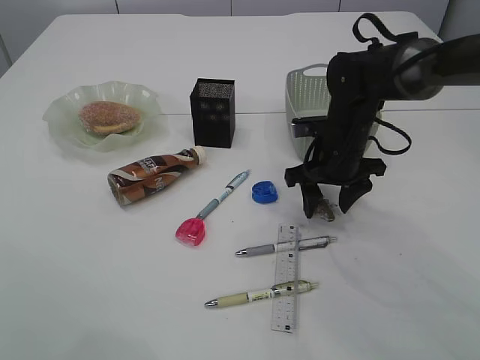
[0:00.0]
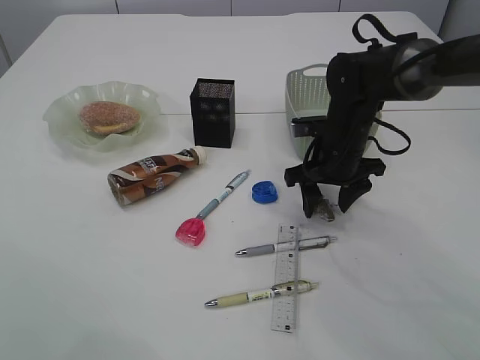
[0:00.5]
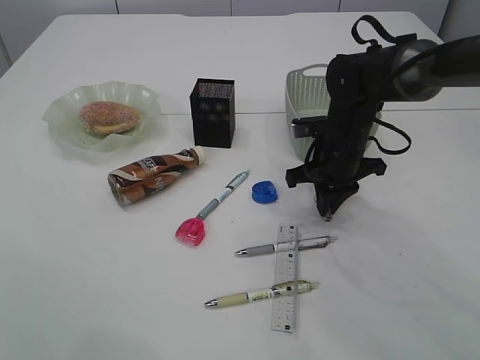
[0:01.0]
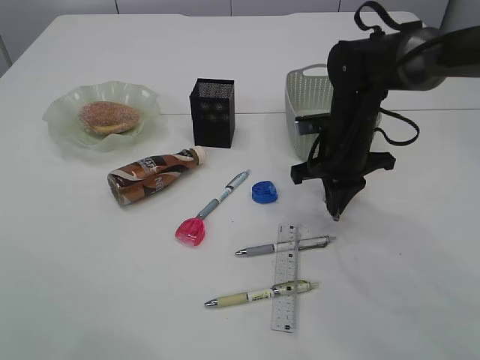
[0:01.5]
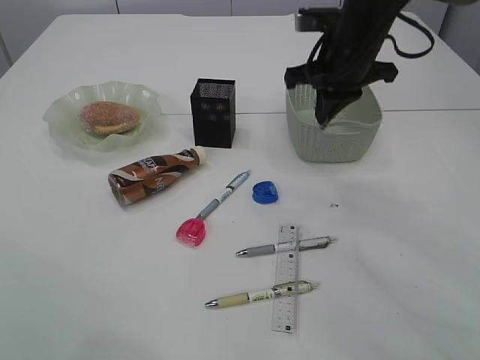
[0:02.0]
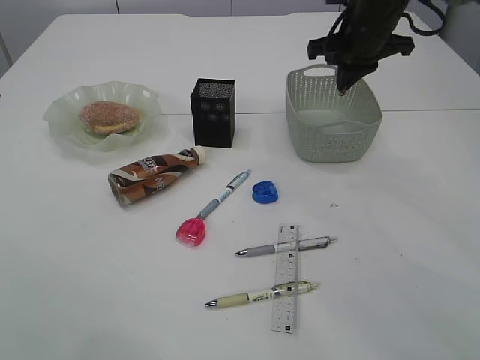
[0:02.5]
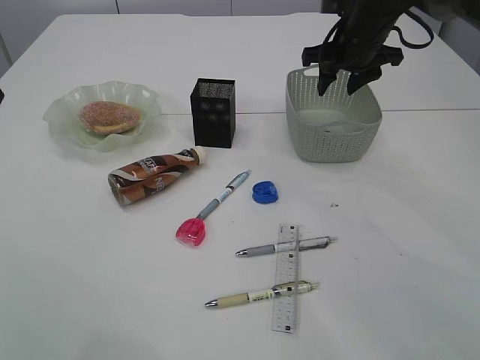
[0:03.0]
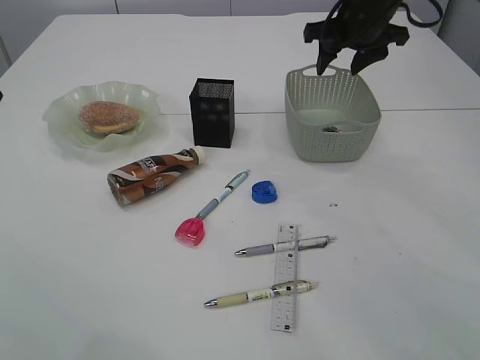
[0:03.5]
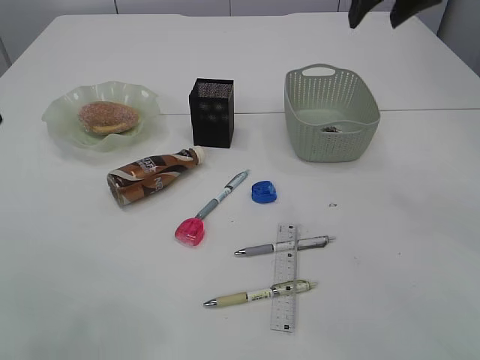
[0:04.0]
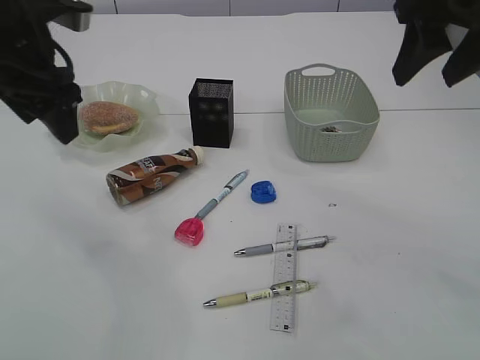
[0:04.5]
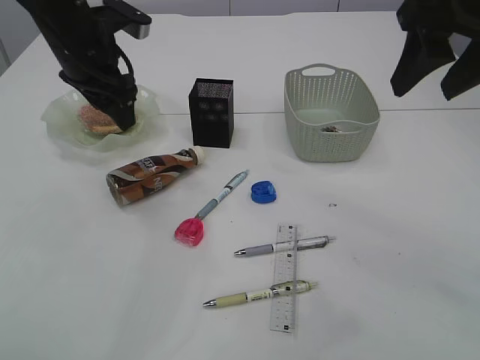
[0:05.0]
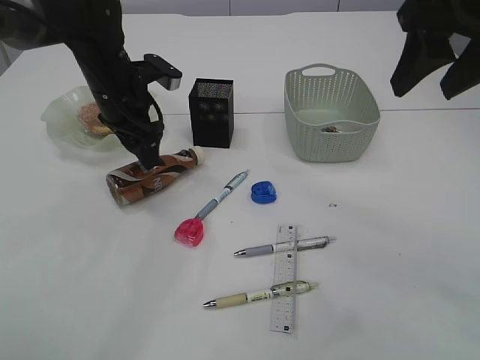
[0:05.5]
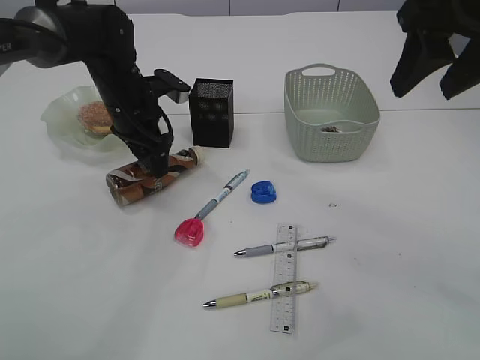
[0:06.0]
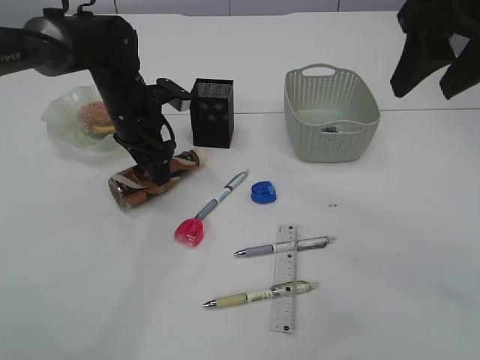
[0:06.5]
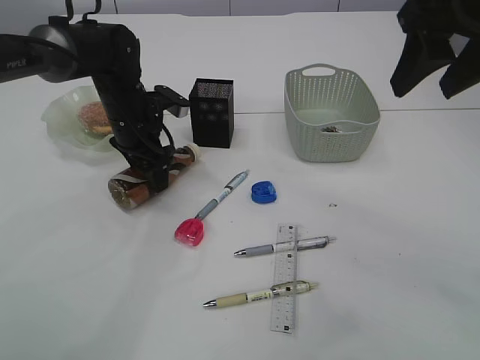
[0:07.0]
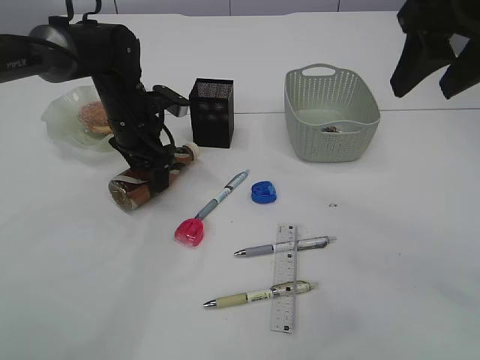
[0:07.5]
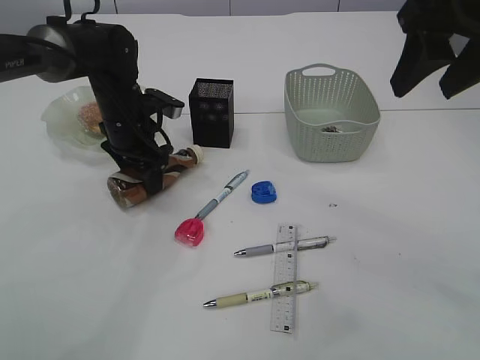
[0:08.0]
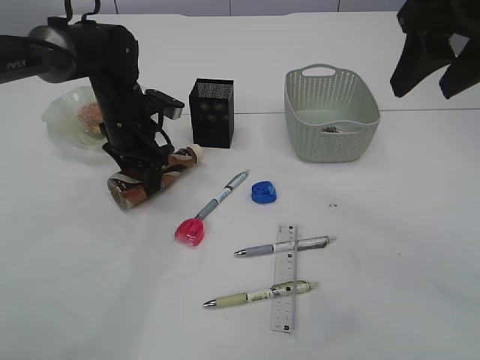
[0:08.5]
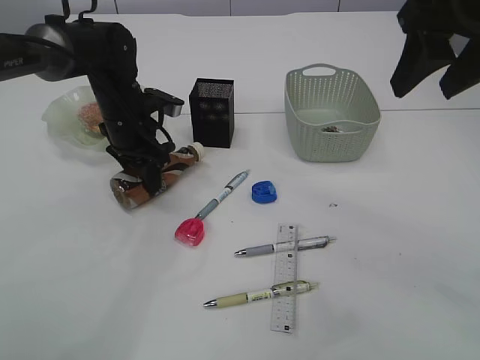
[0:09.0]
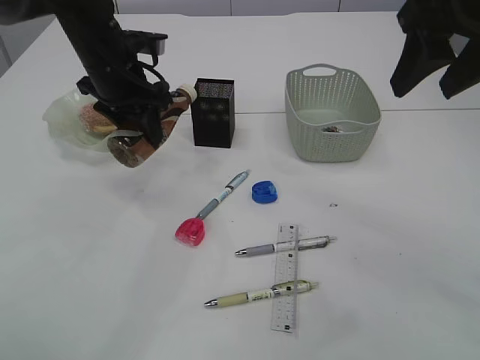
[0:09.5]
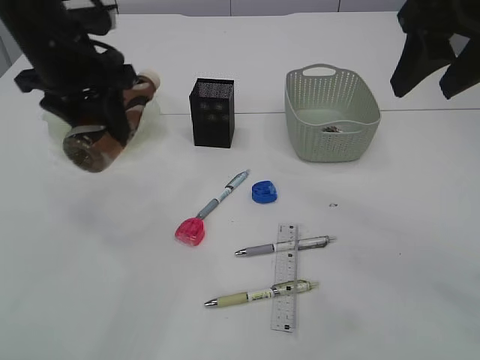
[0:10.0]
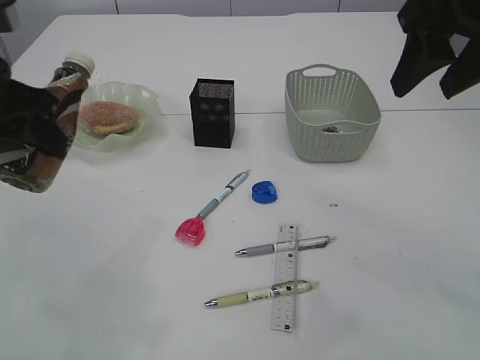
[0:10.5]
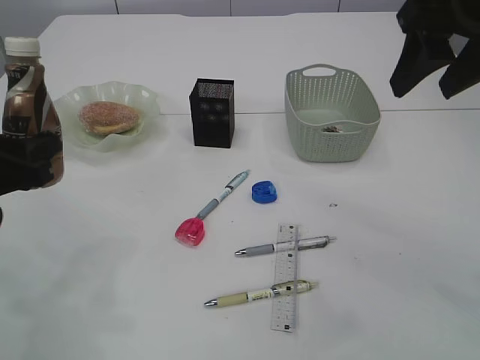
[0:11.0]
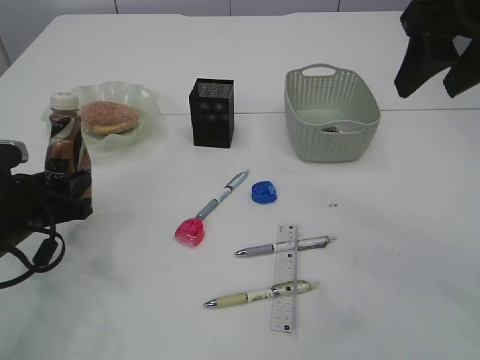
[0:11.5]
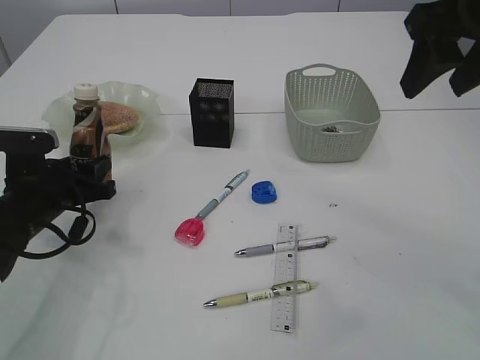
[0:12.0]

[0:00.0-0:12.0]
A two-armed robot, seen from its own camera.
Step, 2.0 to 3.0 s: Place the waste paper in the basket.
Step, 3.5 to 10.0 s: Pick up the bottle with the left arm.
0.0 to 2.0 s: The right gripper heads upward, covering approximately 15 cm, and closes up.
2.0 to 4.0 s: The right gripper goes some 10 cm upward, and opens up.
4.0 to 6.0 s: The right gripper is displaced backward by approximately 15 cm, while the left gripper moves forward and downward, some 30 cm.
6.0 to 8.0 s: The grippers make only small movements.
8.0 to 10.0 s: The left gripper travels upward and backward by some 15 cm, and closes.
10.0 to 12.0 s: The left gripper is displaced downward by some 20 cm.

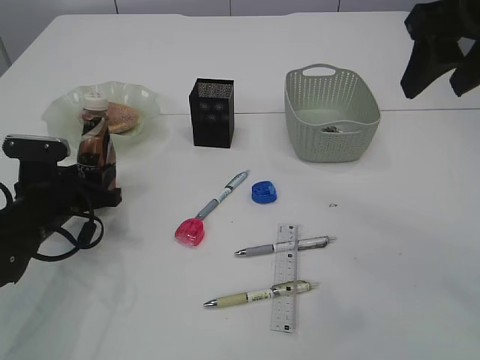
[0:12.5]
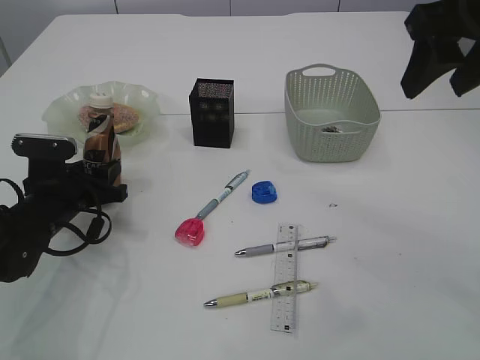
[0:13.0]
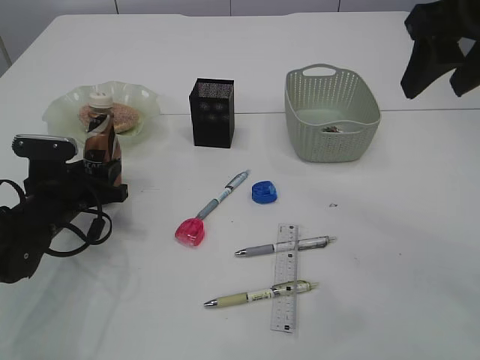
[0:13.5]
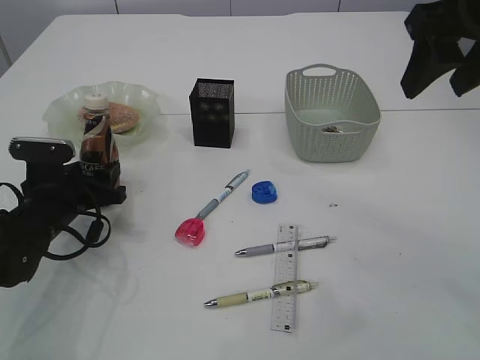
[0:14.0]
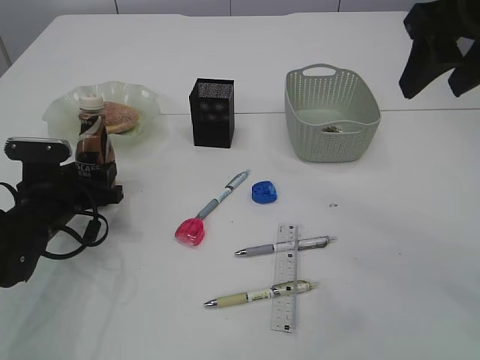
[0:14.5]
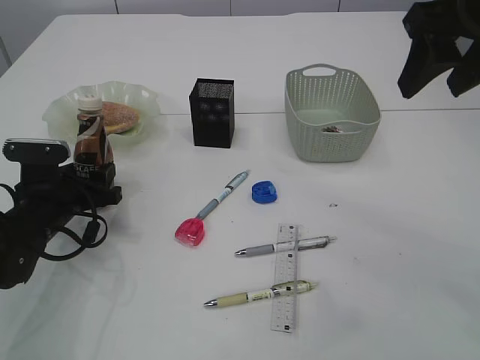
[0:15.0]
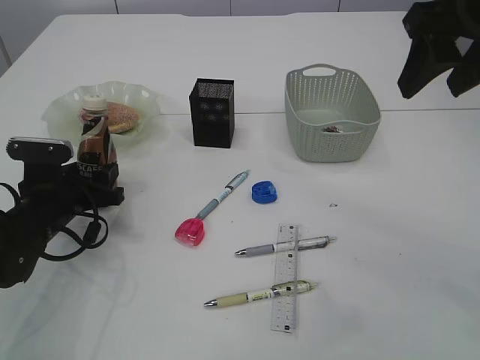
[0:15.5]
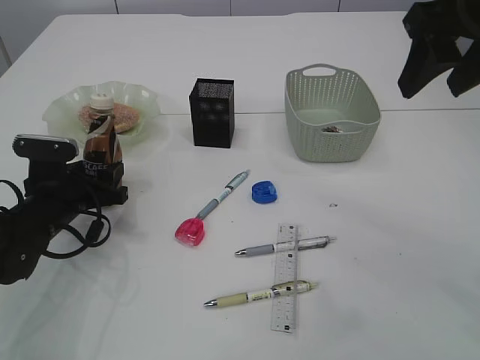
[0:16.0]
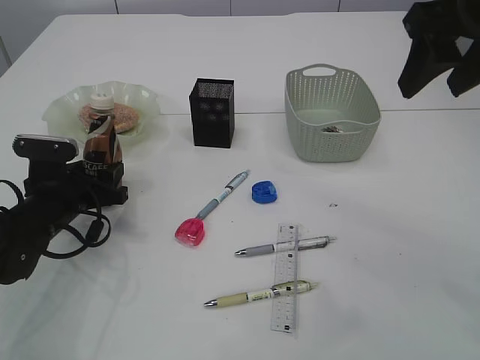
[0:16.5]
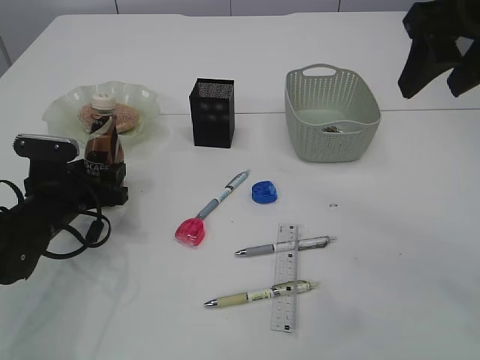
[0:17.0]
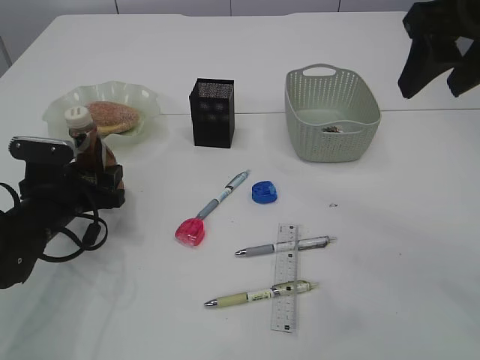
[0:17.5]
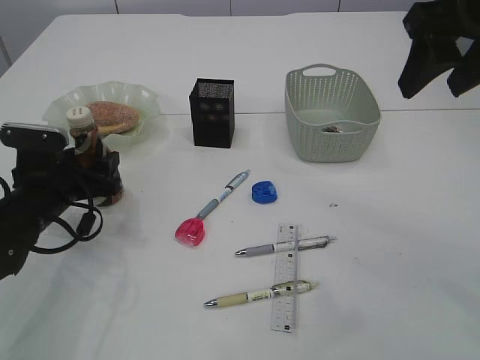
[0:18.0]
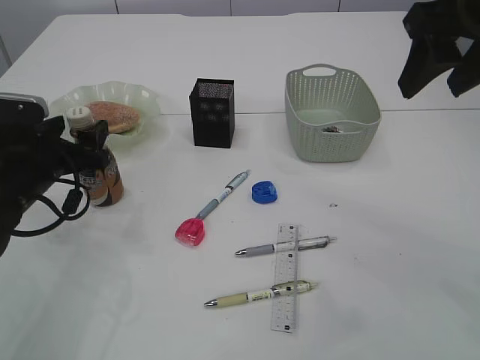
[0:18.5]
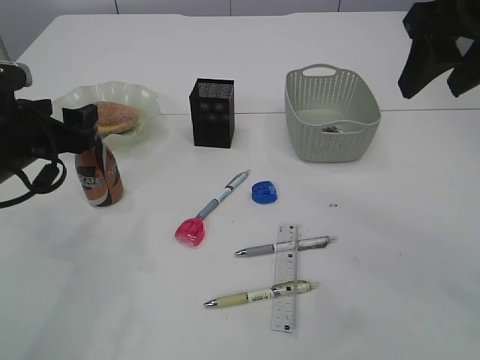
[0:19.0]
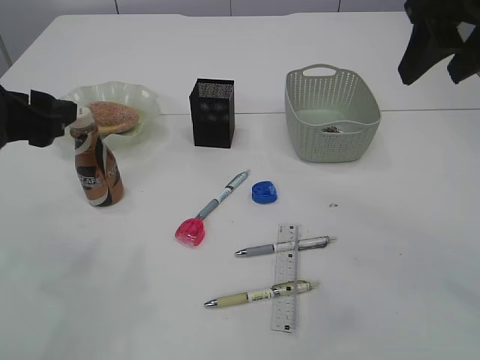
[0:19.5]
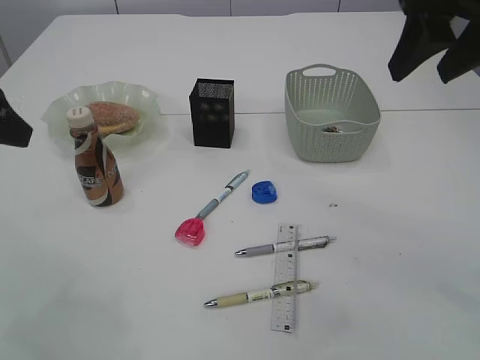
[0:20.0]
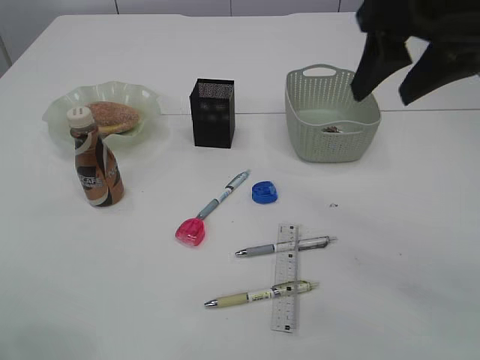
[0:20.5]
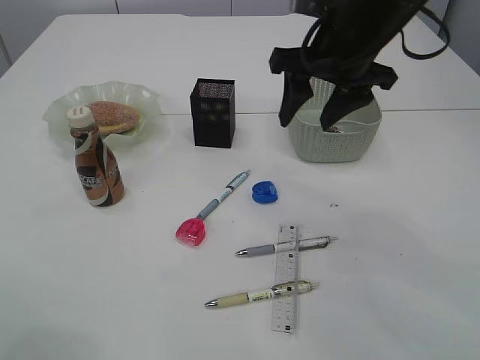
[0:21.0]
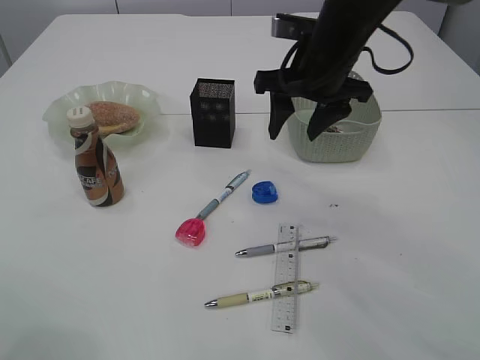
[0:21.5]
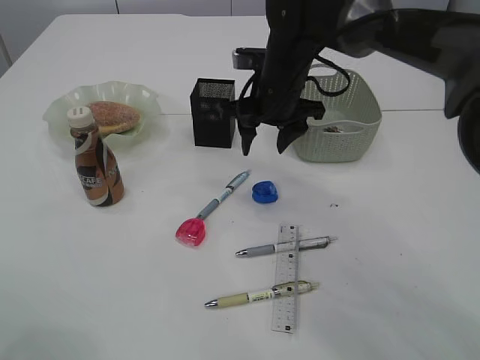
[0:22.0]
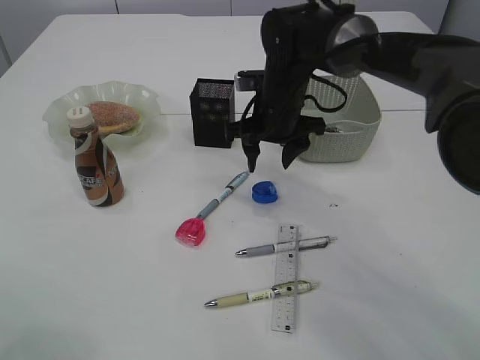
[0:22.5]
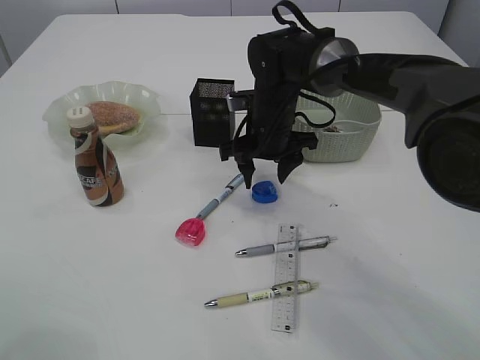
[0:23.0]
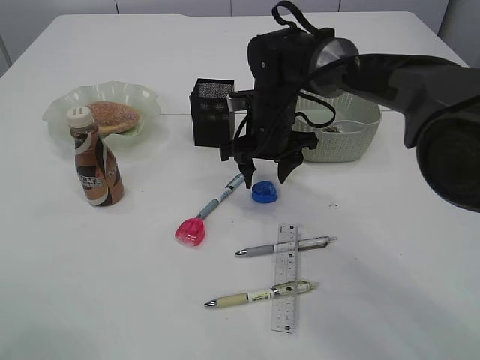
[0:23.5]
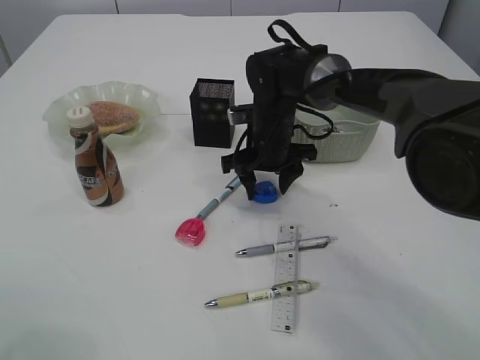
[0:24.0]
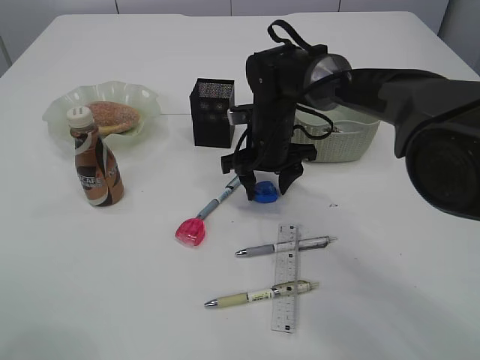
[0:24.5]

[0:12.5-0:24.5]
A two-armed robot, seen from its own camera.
Step, 12.5 to 19.5 s: Place the bottle.
12.5 to 14.5 s: The grippers stay close to where they were, moving slightly.
14.5 to 16.5 s: Both grippers stay about where they are.
16.5 to 18.5 s: The left gripper is displaced upward by some 5 cm.
18.5 to 20.5 s: The left gripper shifts approximately 25 cm upward and backward.
20.5 to 22.5 s: The right gripper is displaced downward, forward and to the left by about 25 cm.
22.5 to 24.5 s: The right gripper moves some 5 cm.

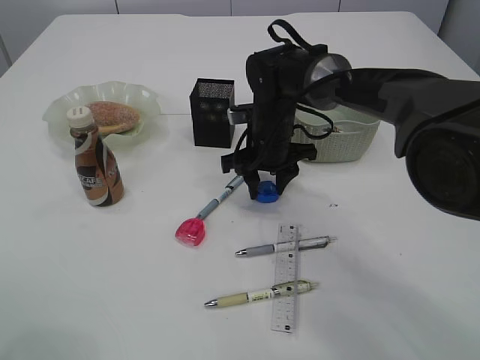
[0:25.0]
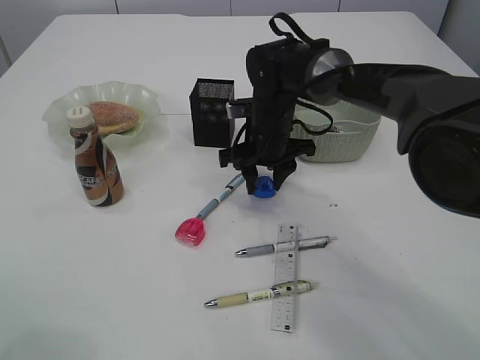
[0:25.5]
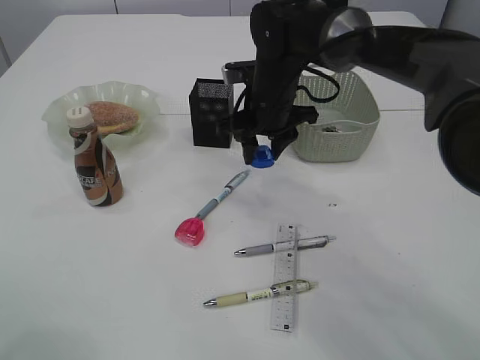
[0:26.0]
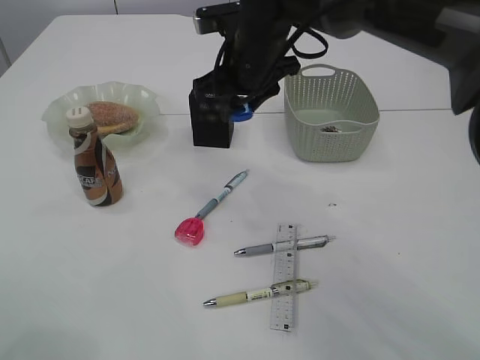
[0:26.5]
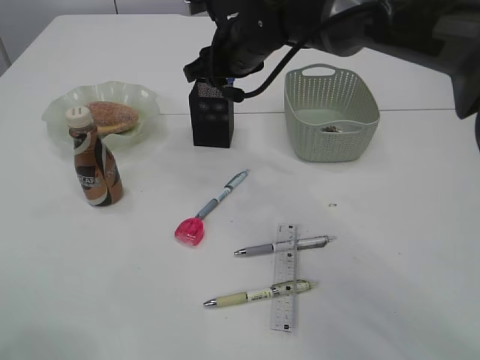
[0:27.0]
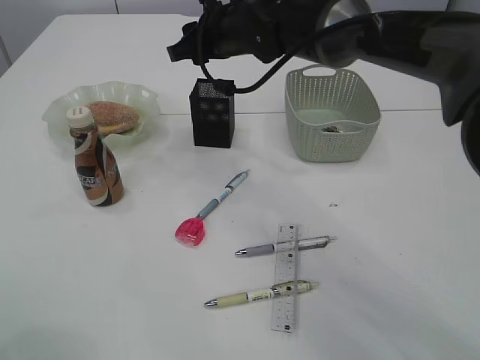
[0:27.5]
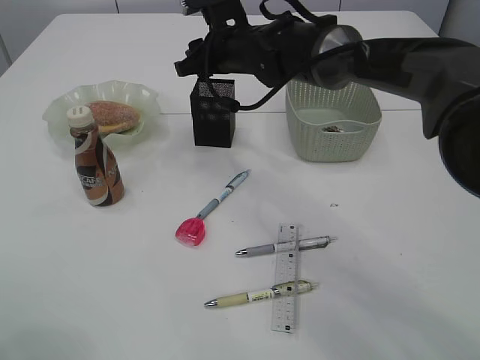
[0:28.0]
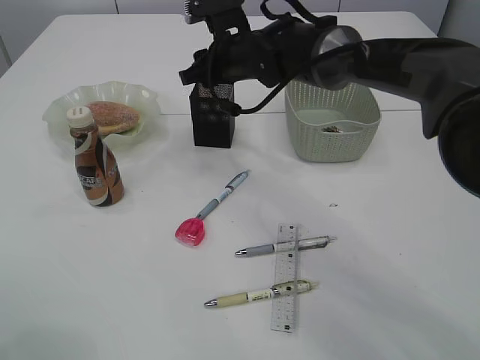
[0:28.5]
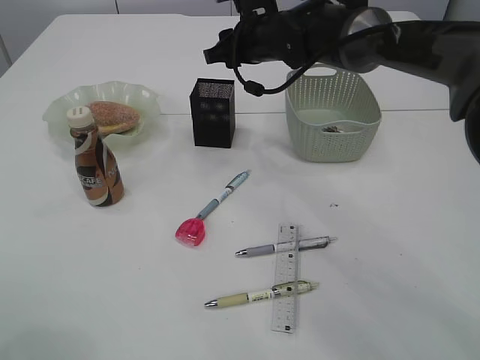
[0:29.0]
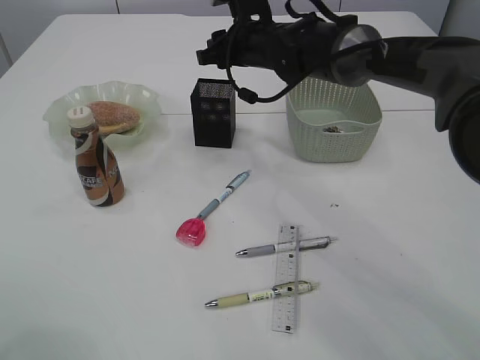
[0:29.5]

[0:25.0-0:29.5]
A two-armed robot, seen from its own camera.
25.0 to 27.0 s: The right gripper moves upward, some 10 cm.
27.0 to 29.5 s: The right gripper moves approximately 5 cm.
